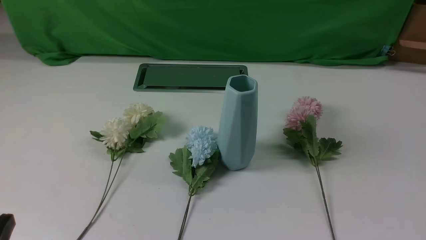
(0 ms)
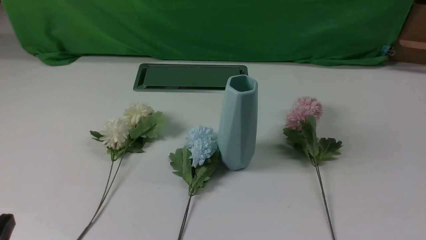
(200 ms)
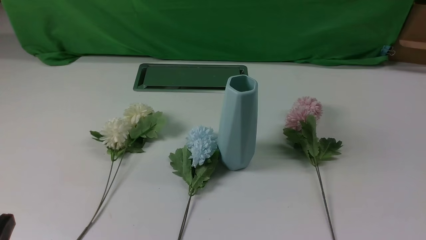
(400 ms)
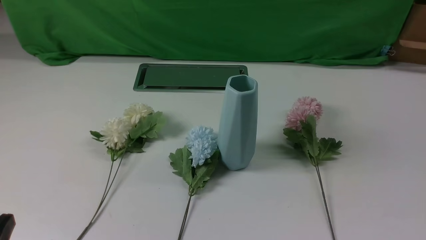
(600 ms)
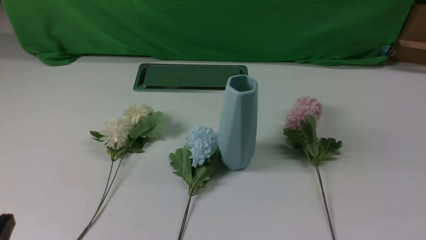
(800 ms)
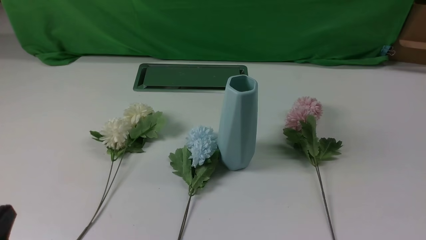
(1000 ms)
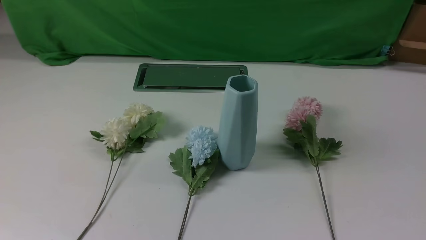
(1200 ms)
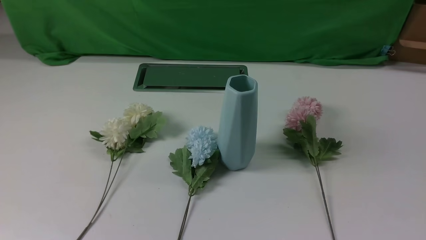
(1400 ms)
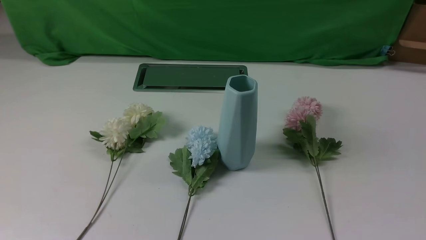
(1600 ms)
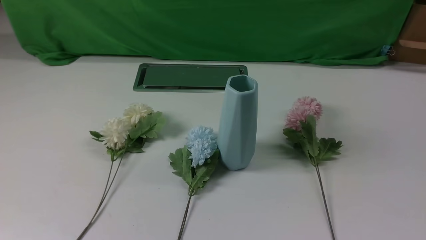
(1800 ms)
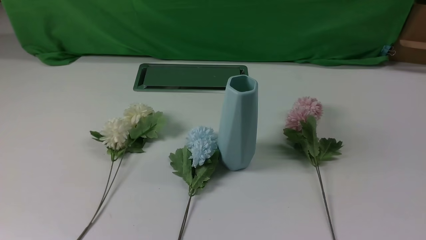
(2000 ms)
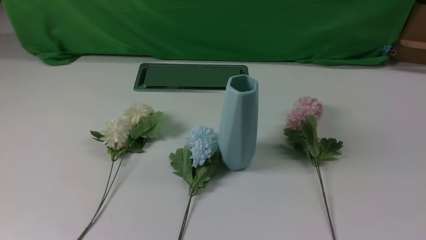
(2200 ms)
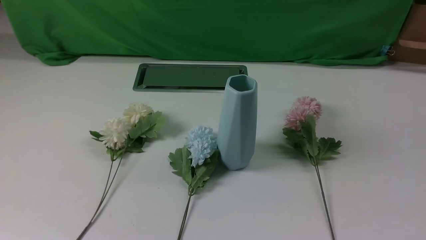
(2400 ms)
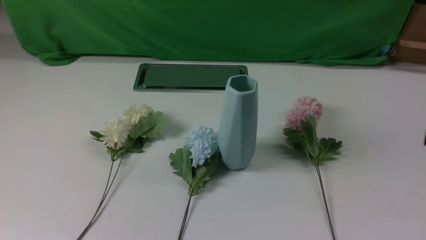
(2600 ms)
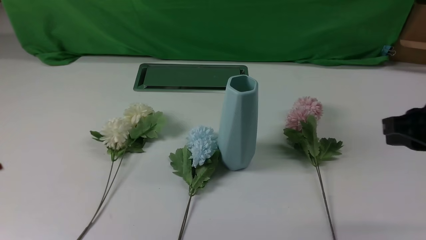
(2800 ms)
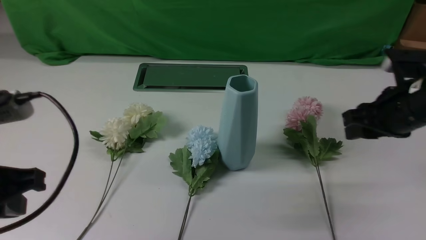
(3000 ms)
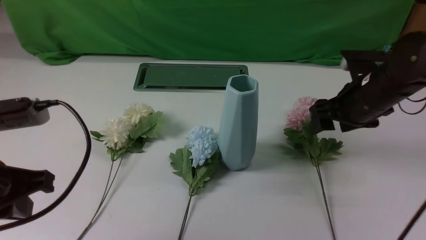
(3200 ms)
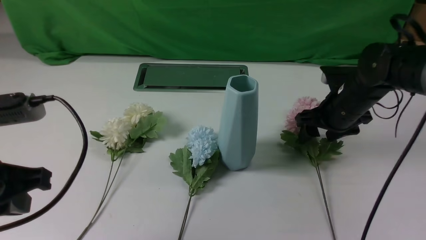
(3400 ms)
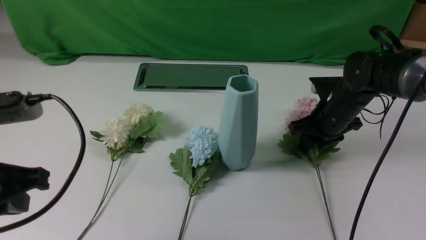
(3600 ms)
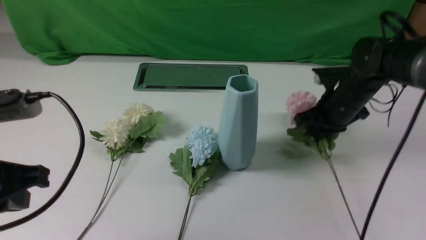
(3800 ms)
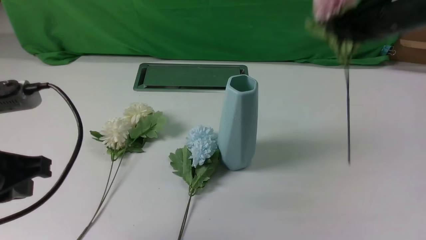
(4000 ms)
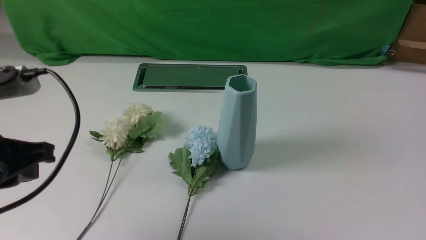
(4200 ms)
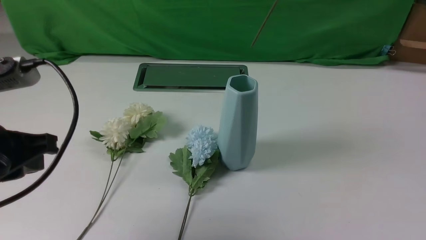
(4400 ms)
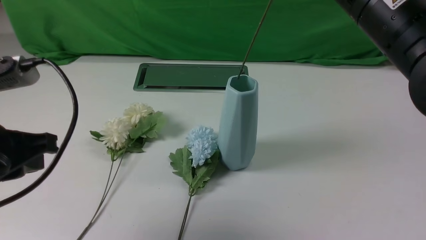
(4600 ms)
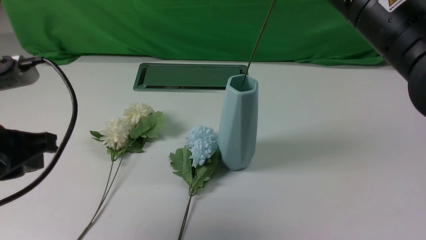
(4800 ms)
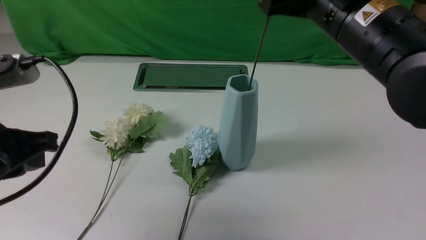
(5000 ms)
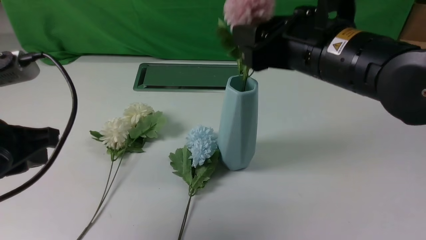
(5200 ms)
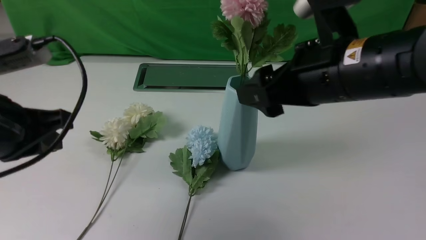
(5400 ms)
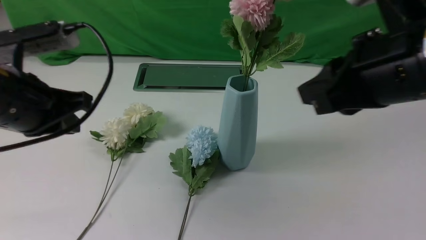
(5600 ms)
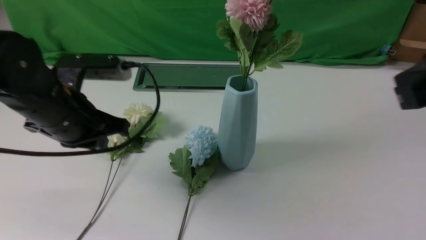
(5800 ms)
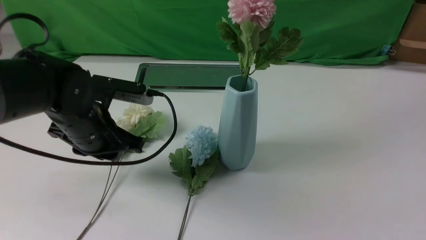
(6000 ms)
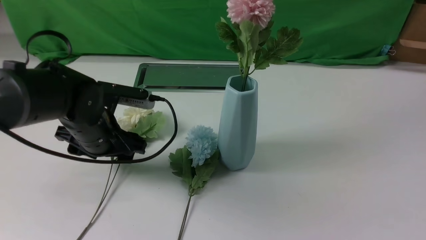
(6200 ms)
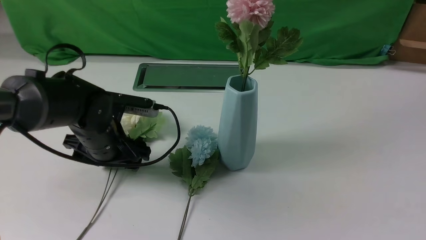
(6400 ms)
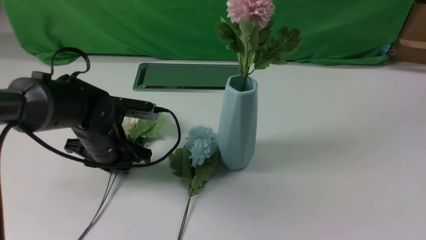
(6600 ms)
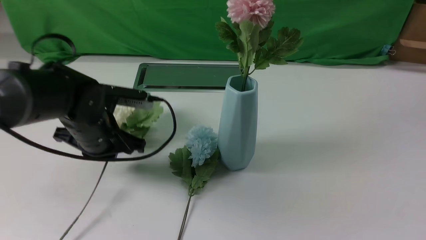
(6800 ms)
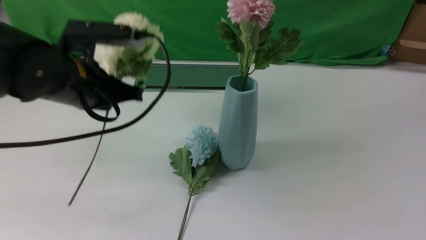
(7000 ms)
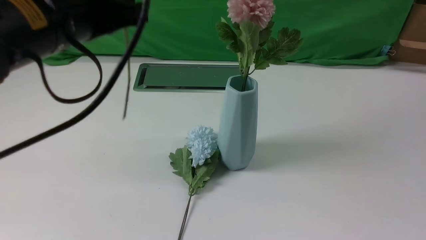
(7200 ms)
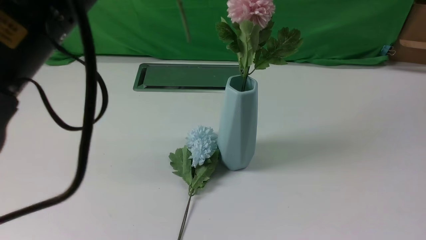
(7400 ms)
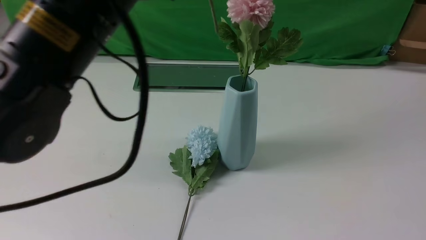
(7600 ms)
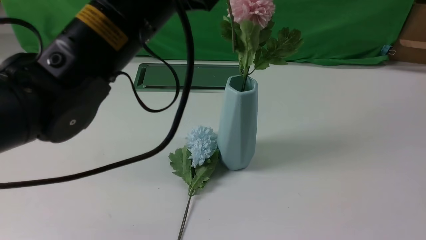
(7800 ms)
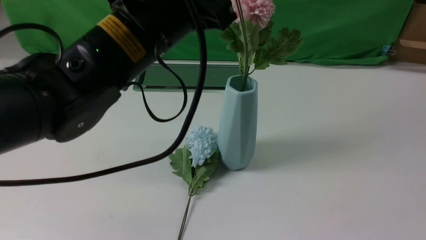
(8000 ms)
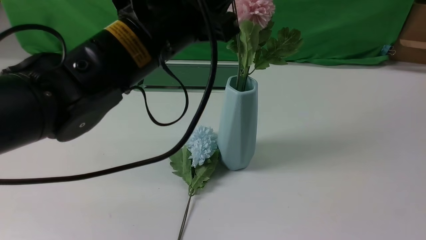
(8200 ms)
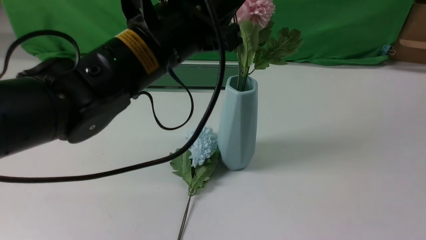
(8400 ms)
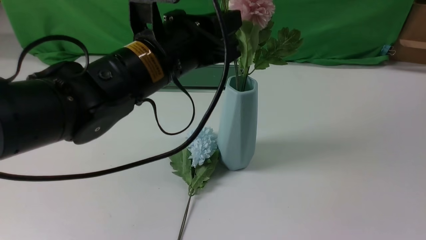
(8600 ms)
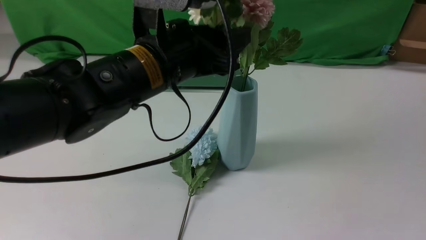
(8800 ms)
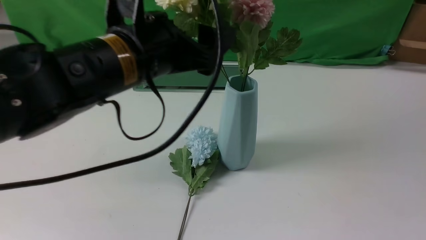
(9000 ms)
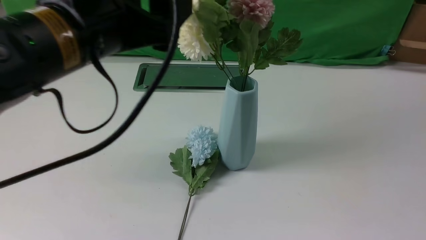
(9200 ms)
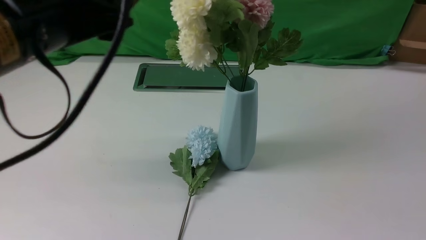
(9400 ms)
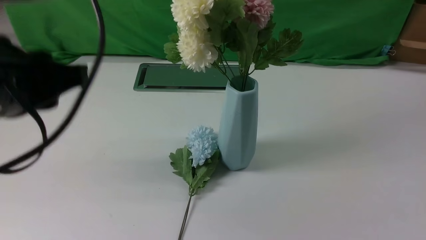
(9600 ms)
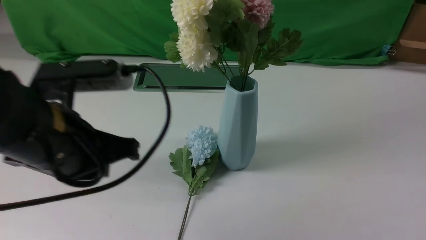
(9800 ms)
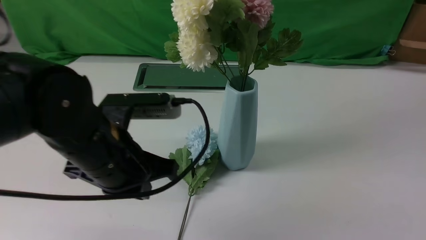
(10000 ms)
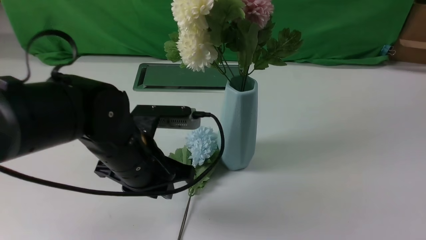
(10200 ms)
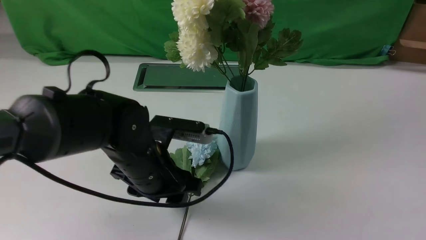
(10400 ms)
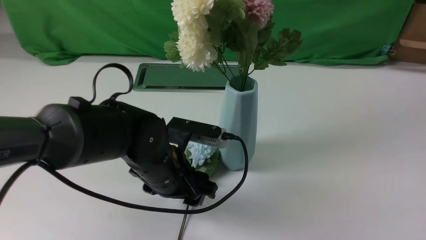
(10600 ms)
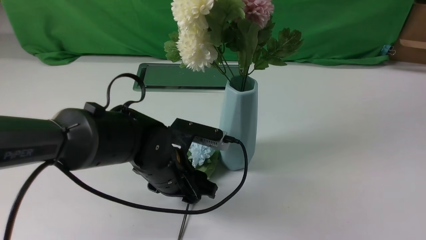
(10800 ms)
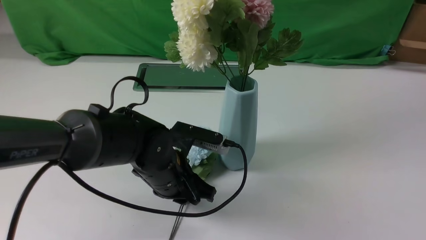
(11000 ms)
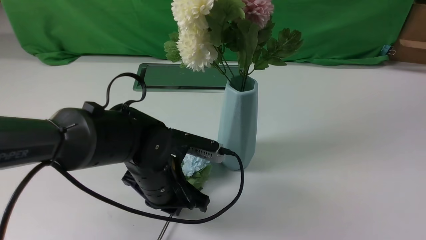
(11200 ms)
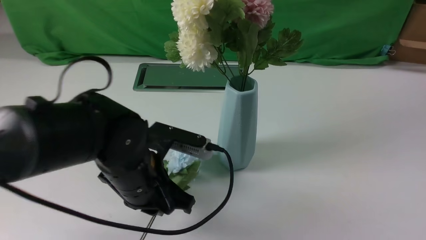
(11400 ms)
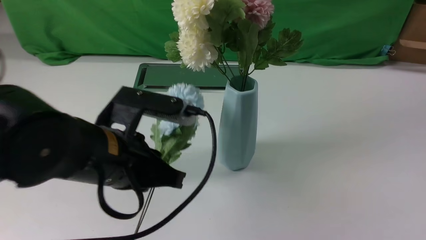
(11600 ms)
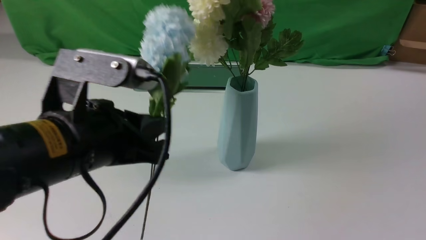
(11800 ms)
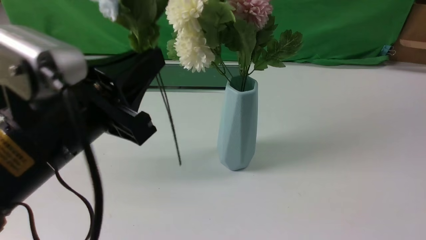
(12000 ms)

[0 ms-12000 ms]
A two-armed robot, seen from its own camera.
Task of the whole recording: insert the flowers into the vase on the white table.
Step, 0 ms to 3600 ms: use the right arm to grab a bunch of fresh flowers.
Step, 3800 ms to 5400 ms: use the right arm to insert the flowers into the vase.
Step, 5600 ms to 6800 ms: use the left arm to grab a bunch of fresh flowers.
Step, 7000 ms to 8800 ms: use the left arm to insert the flowers into the vase.
Step, 9200 ms to 11200 ms: use the left arm to grab a bunch of fresh flowers.
1600 ms to 3000 ms: The left gripper is displaced forward by roughly 10 cm, while the right gripper shifts roughly 25 cm forward, and closes and opens again.
3000 ms to 4400 ms: The right gripper is displaced upward and to the left by approximately 20 cm, and closes.
4400 ms to 6000 ms: The right gripper heads backward and to the right, covering roughly 15 cm, and opens and closes again; the left gripper shifts some 15 cm forward, downward and to the right, and opens its fingers.
6000 ms to 7600 ms: The left gripper shifts roughly 20 cm upward, and closes up.
7600 ms to 9000 ms: The left gripper opens its fingers.
9000 ms to 10400 ms: The left gripper is displaced downward by some 15 cm, and closes, then opens again.
10400 ms to 12000 ms: The left gripper heads upward and backward, covering roughly 15 cm, and closes up.

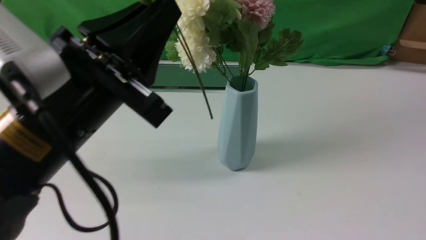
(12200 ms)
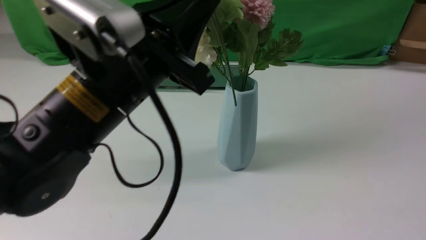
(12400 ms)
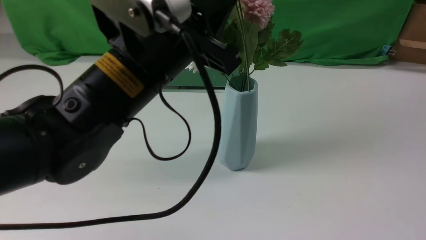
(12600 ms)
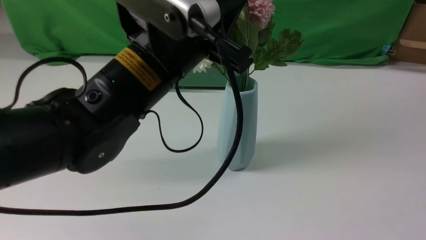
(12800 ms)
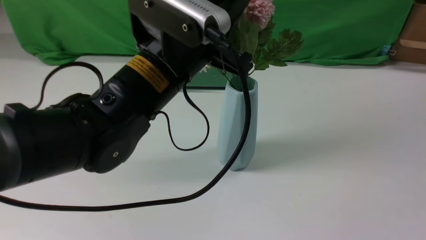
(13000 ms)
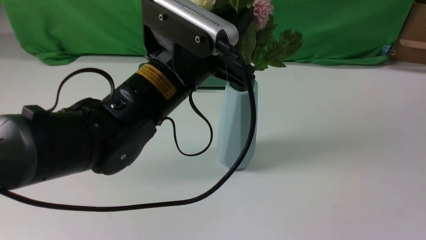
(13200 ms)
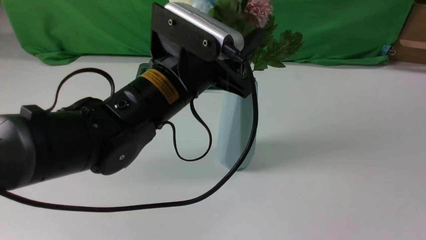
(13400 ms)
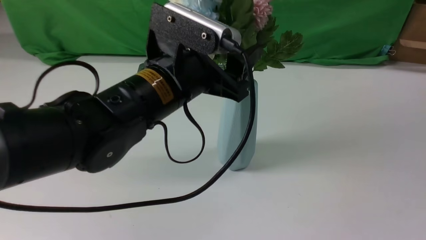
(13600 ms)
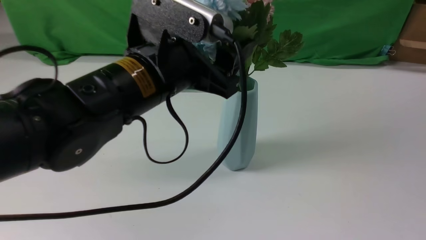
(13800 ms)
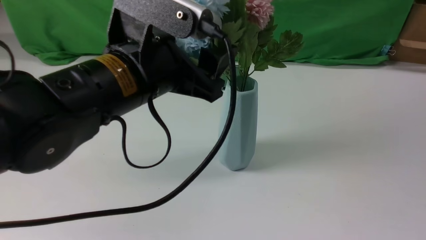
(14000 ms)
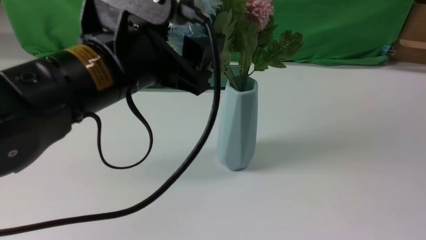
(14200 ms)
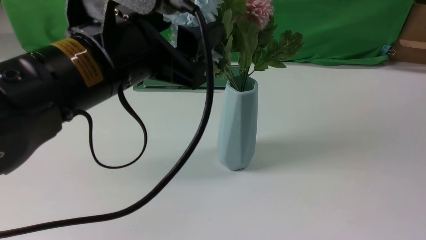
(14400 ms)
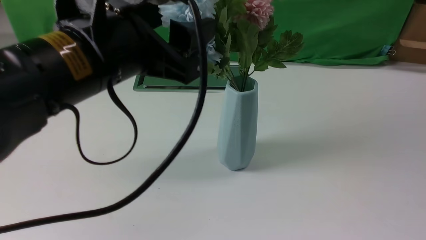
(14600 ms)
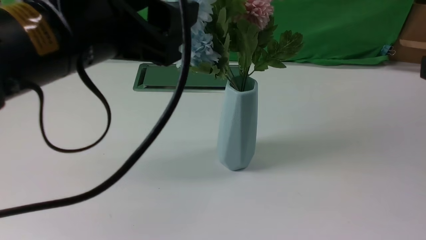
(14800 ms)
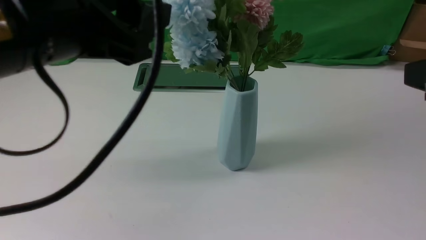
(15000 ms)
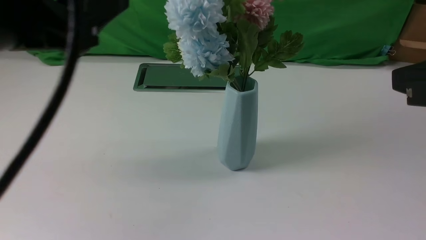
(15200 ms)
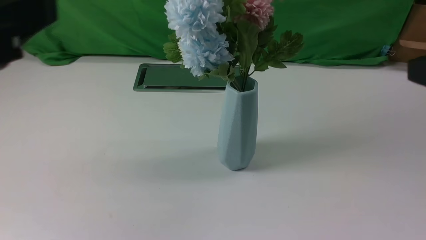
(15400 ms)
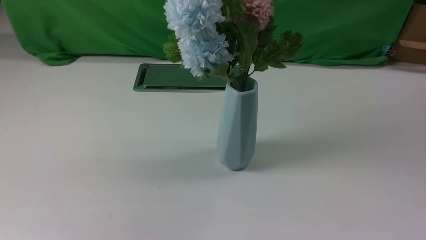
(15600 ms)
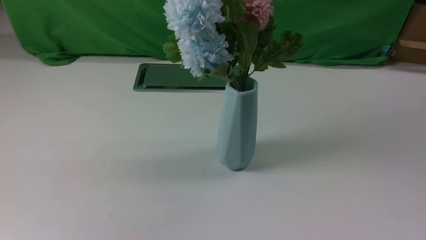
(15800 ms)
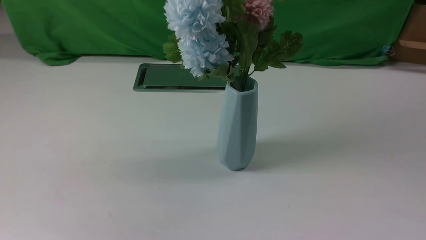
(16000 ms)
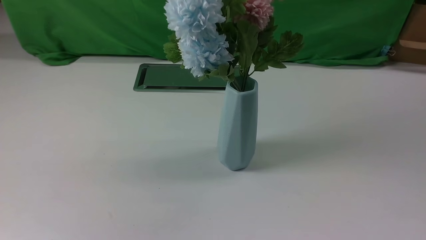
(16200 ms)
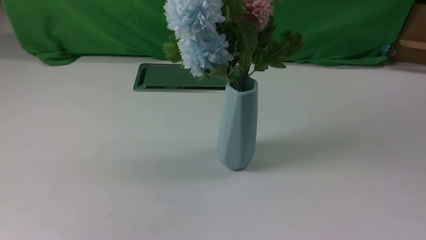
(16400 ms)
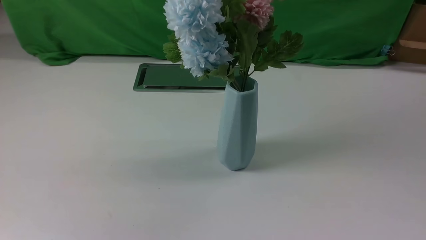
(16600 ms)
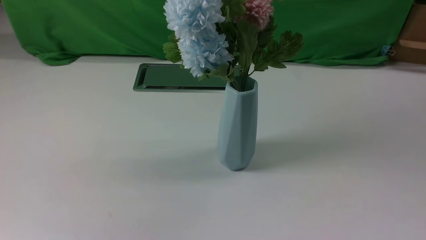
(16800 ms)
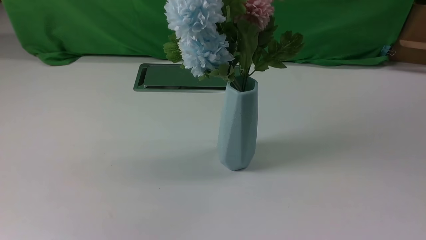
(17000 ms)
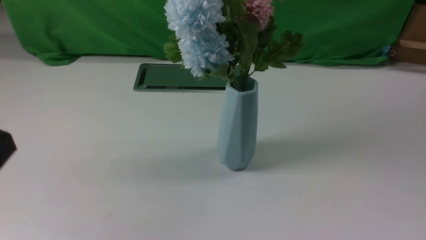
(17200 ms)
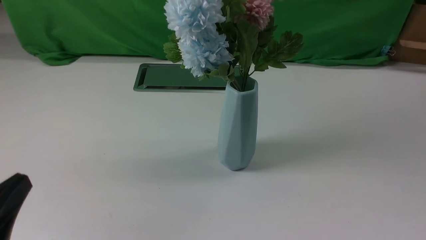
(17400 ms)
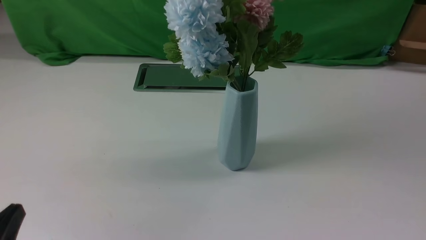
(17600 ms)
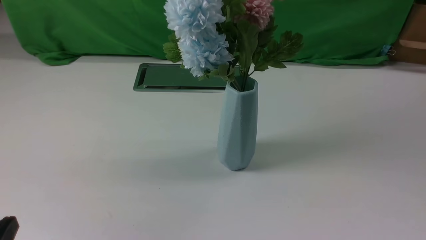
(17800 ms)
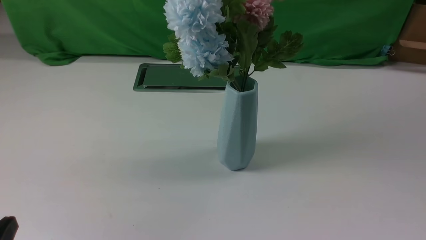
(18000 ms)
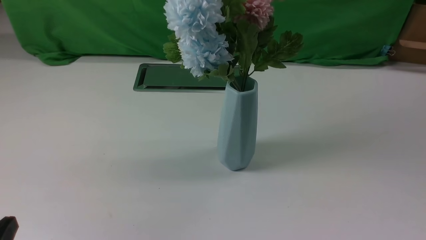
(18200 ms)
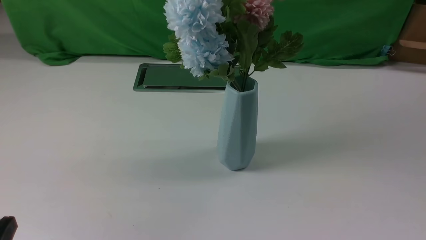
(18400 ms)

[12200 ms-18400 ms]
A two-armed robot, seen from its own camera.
Task of the whole recording: insert the flowers into the vase on the white table.
Step, 12200 ms to 13800 ms: use the left arm to insert the flowers into the vase.
12200 ms to 13800 ms: The left gripper heads forward, covering some 5 cm, and opens up.
13800 ms to 15400 ms: The left gripper shifts some 20 cm backward, to the left and upward, and closes.
15400 ms to 16800 ms: The left gripper is displaced backward, downward and to the left by roughly 10 cm, and closes.
